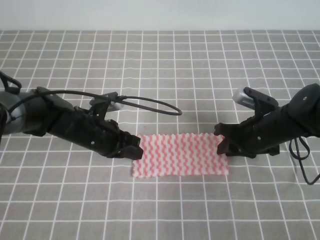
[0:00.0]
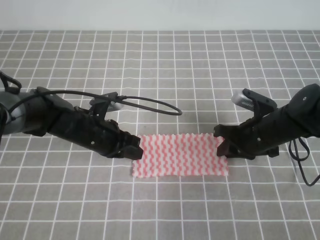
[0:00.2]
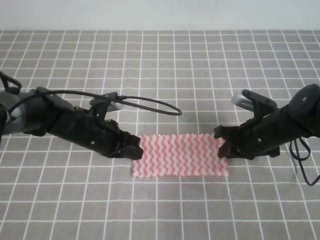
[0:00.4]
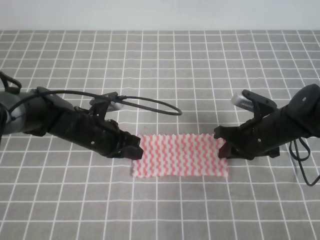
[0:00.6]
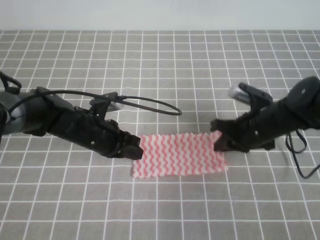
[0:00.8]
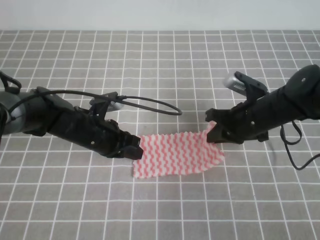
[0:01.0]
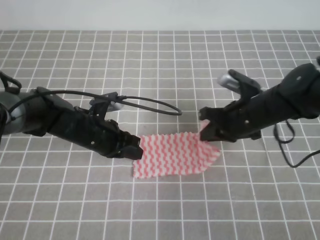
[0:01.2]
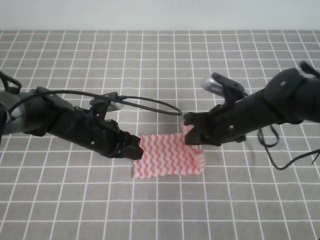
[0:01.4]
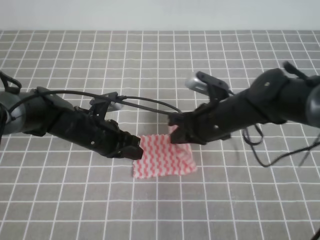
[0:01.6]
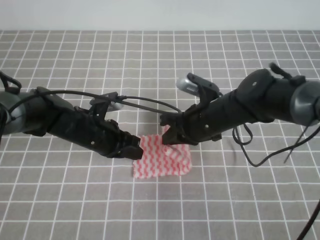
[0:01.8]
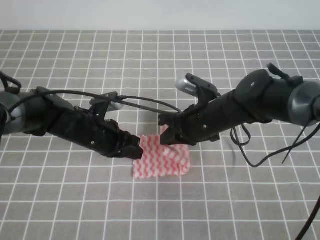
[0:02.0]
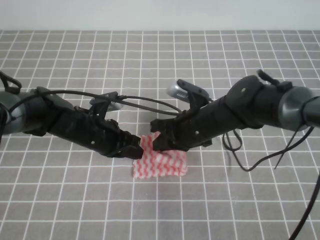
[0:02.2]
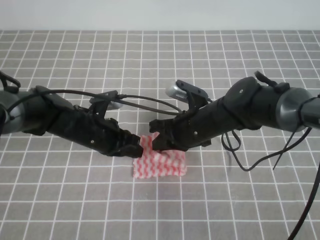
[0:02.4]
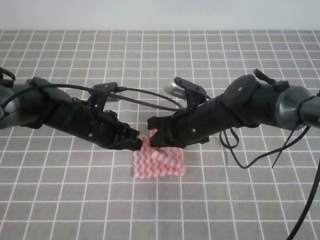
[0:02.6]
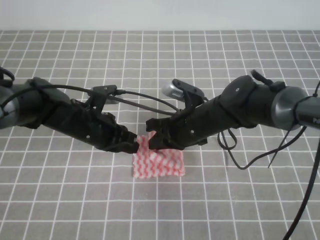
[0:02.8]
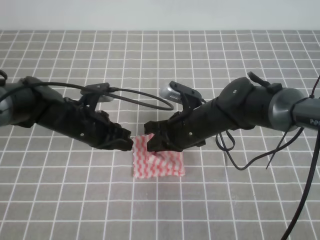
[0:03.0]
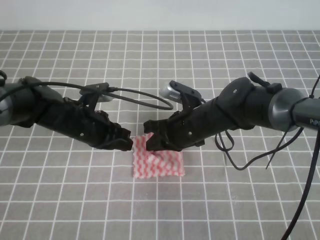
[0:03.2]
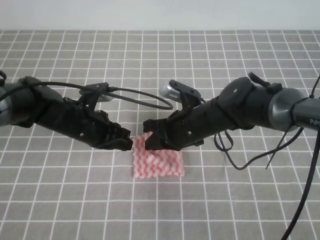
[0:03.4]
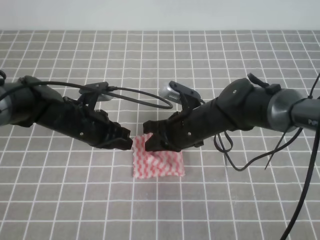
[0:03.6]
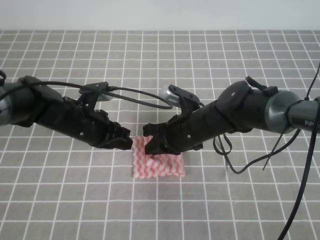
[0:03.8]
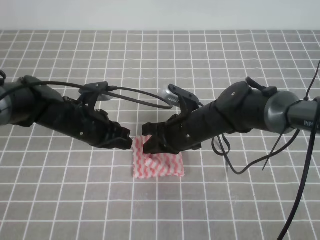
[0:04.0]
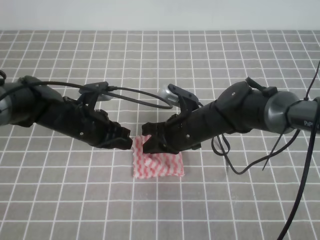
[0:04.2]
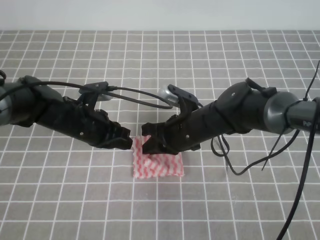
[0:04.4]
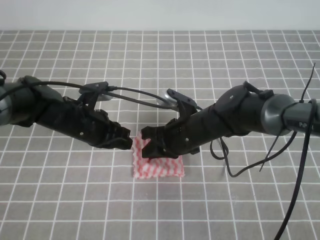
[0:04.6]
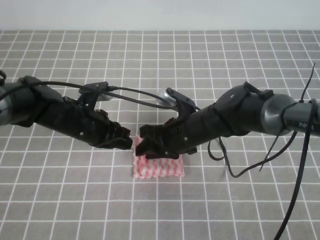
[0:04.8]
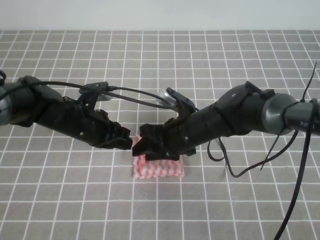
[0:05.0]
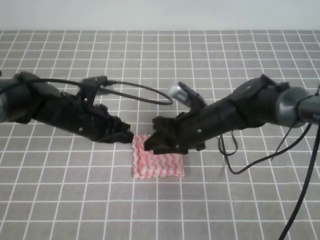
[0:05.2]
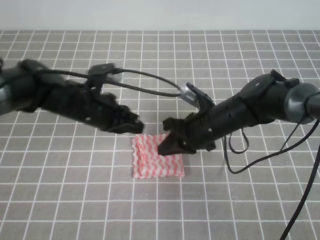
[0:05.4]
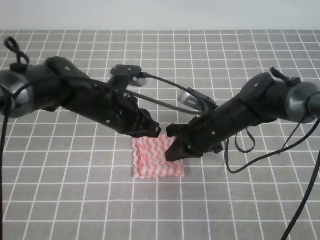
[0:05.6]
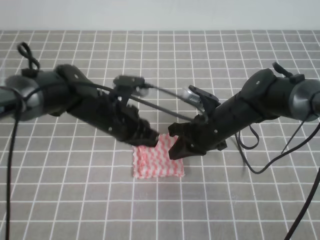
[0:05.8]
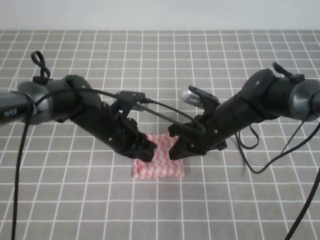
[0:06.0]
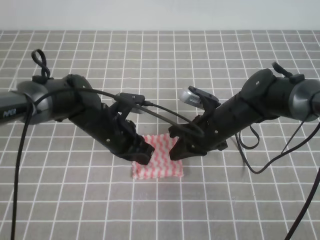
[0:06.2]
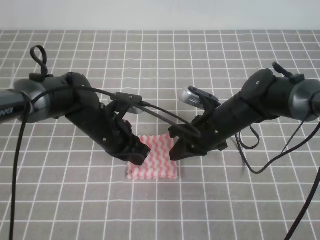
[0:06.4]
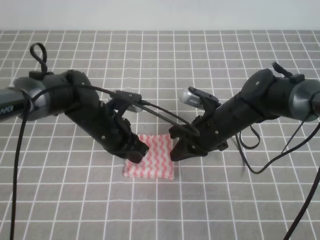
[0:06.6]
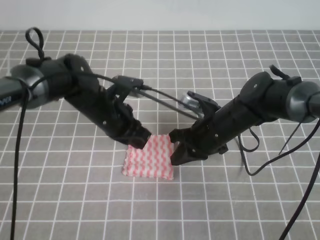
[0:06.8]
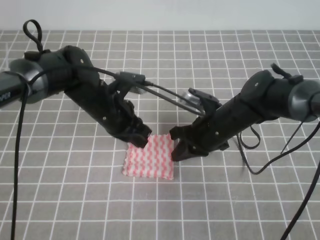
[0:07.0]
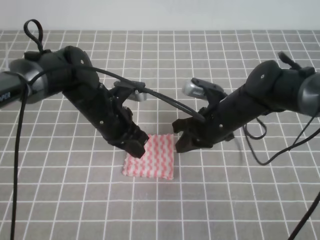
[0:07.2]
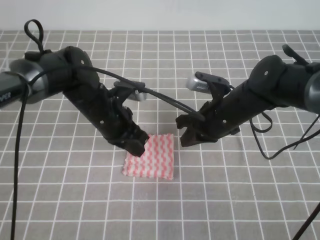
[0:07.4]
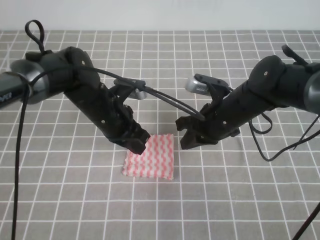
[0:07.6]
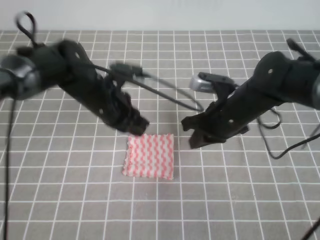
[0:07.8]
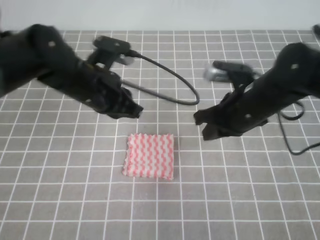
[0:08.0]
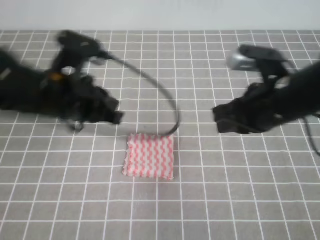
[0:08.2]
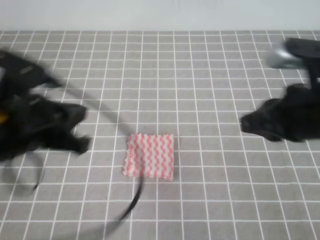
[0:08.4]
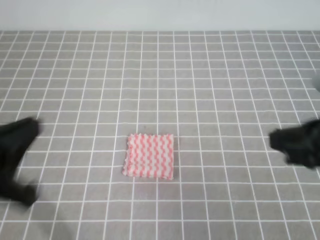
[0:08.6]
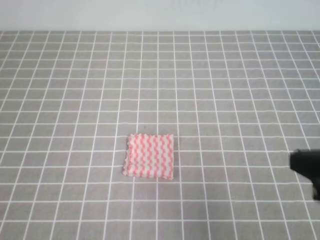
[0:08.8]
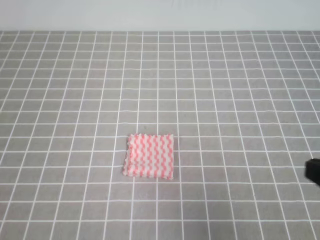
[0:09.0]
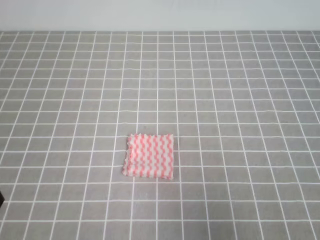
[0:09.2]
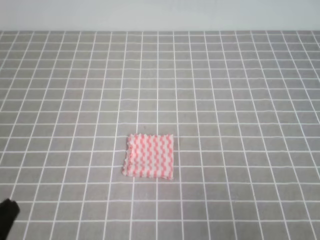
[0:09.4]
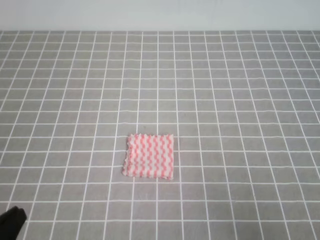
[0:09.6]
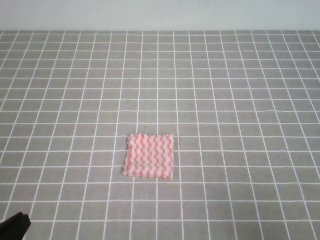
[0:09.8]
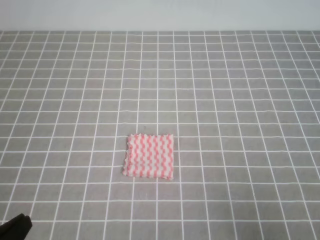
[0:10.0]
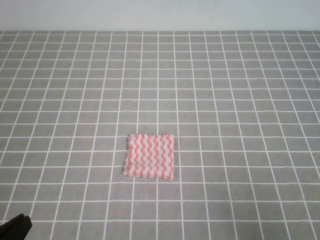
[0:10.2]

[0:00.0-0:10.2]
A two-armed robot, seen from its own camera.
0:00.0 to 0:01.4: The right gripper shifts approximately 5 cm to the left, and closes.
0:01.4 to 0:03.0: The right gripper travels to the left by about 5 cm.
0:03.0 to 0:04.4: The grippers move only a little.
0:04.4 to 0:05.8: The left gripper heads to the right, covering roughly 5 cm, while the right gripper opens, then closes again.
0:05.8 to 0:07.2: The grippers move only a little.
0:07.2 to 0:08.8: The left gripper is displaced backward and to the left by roughly 30 cm. The right gripper goes some 30 cm backward, upward and to the right.
0:08.8 to 0:10.2: The right gripper heads downward, backward and to the right, covering approximately 10 cm. The left gripper moves downward, approximately 10 cm.
